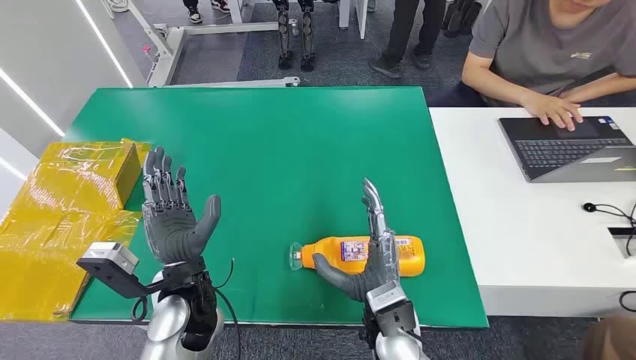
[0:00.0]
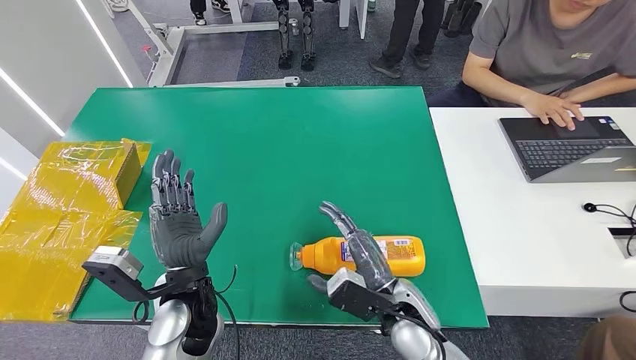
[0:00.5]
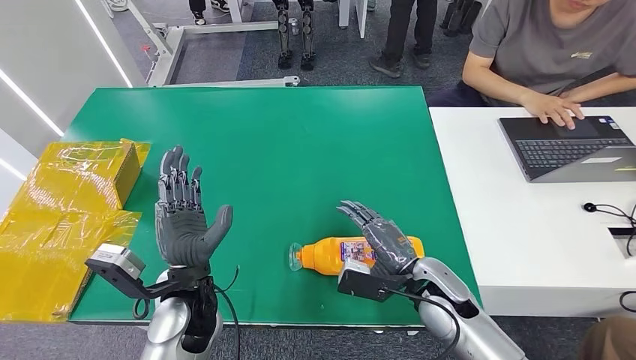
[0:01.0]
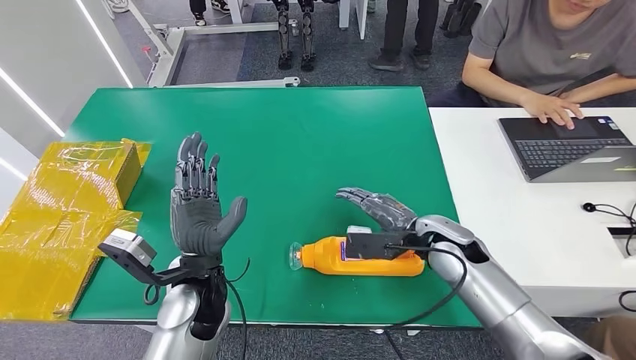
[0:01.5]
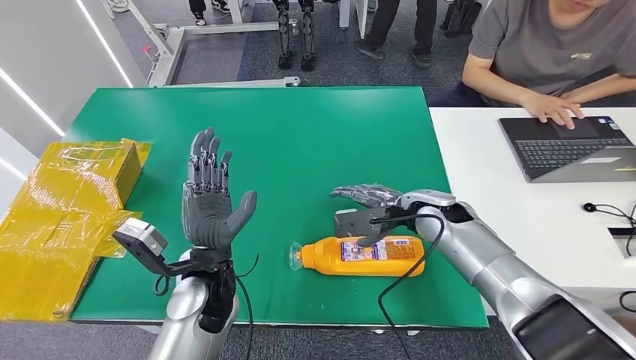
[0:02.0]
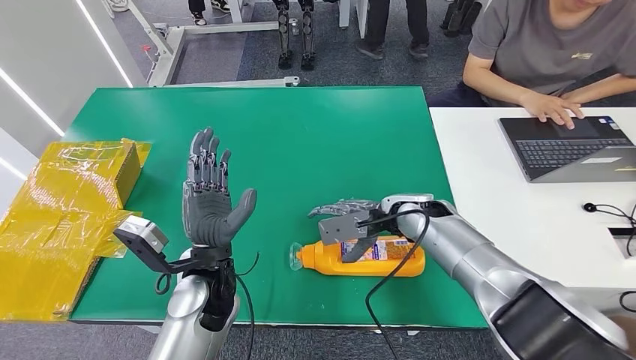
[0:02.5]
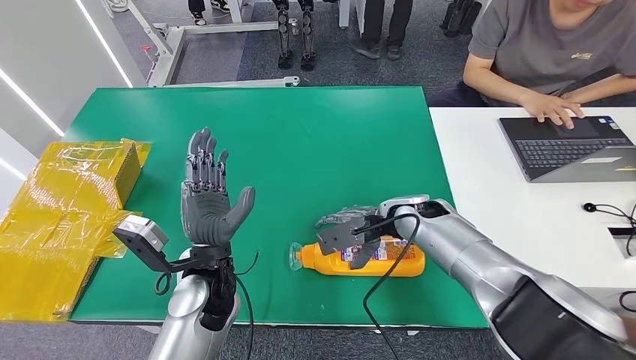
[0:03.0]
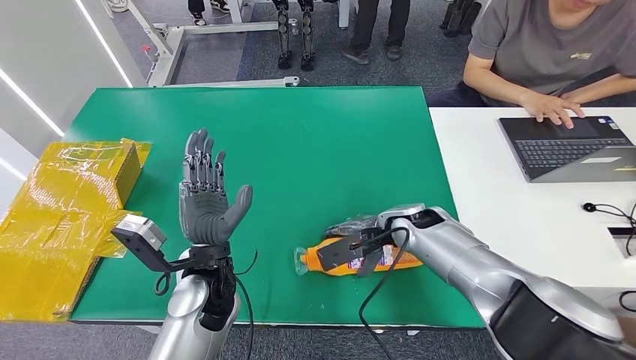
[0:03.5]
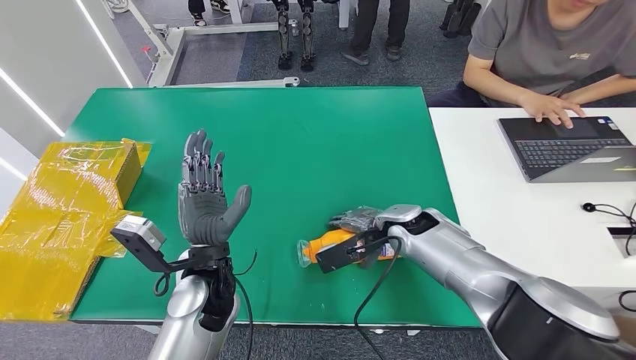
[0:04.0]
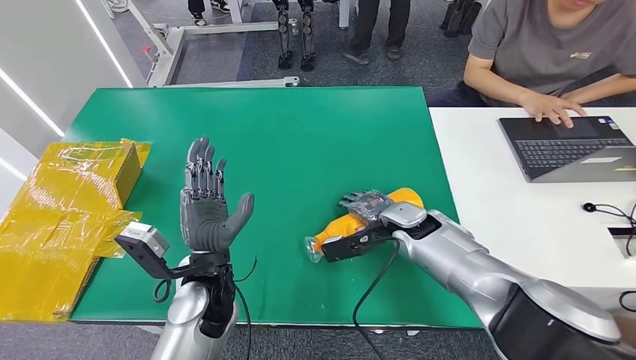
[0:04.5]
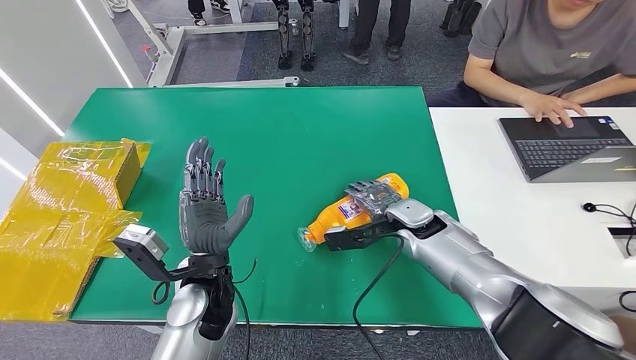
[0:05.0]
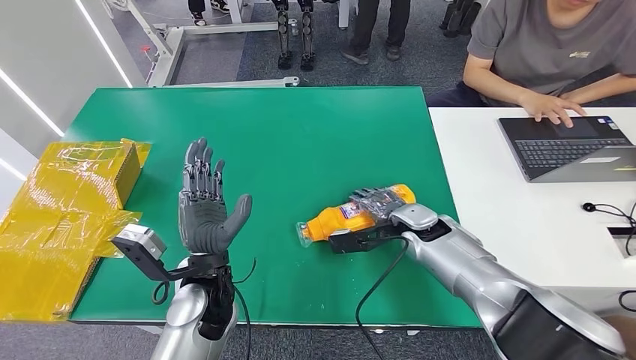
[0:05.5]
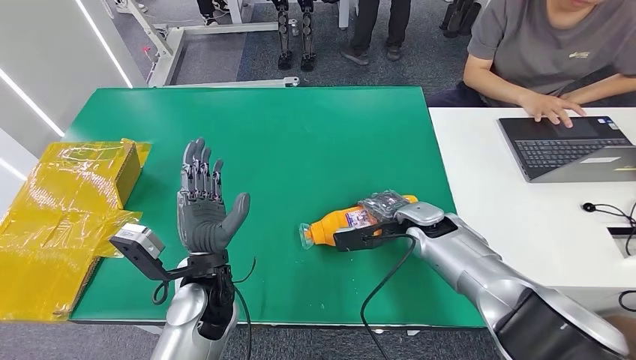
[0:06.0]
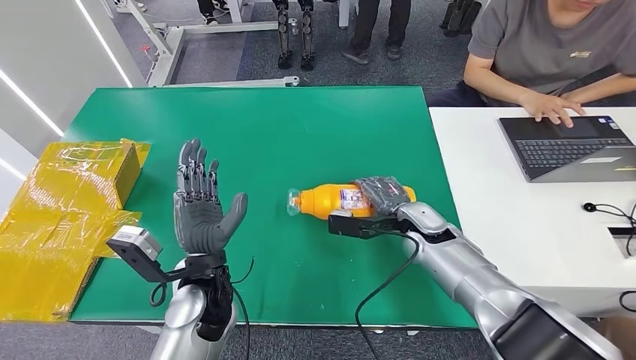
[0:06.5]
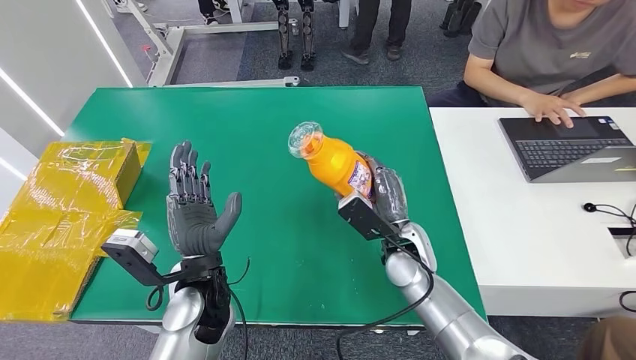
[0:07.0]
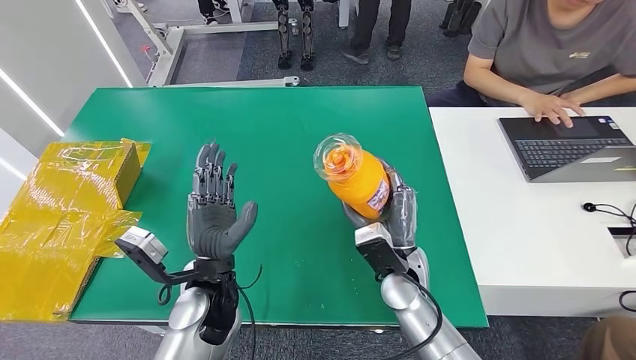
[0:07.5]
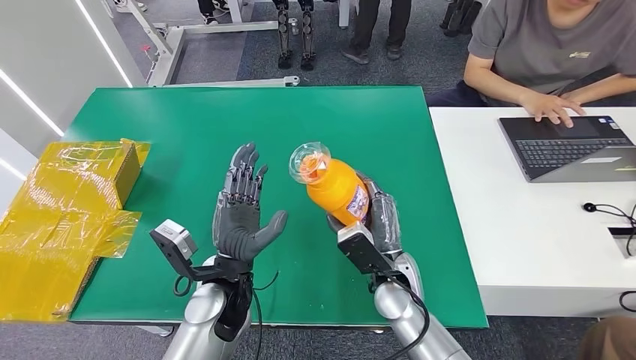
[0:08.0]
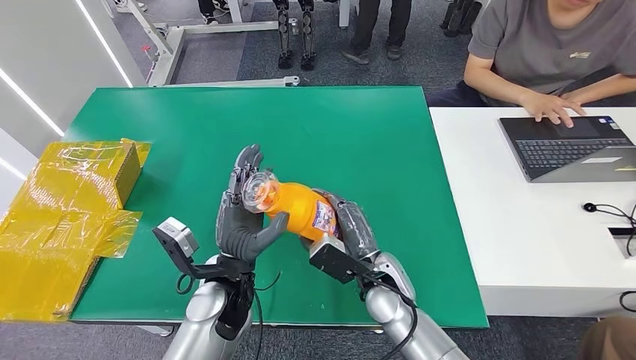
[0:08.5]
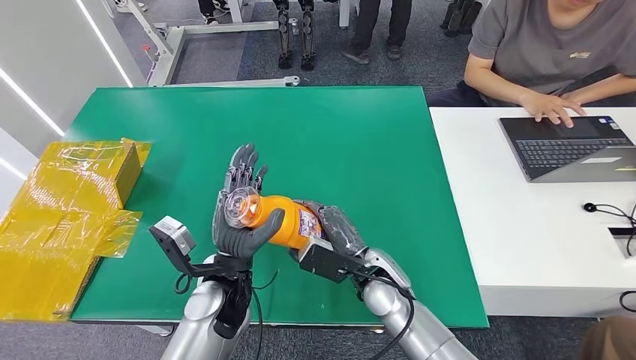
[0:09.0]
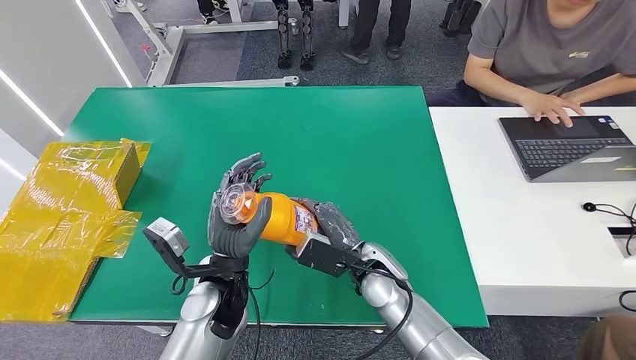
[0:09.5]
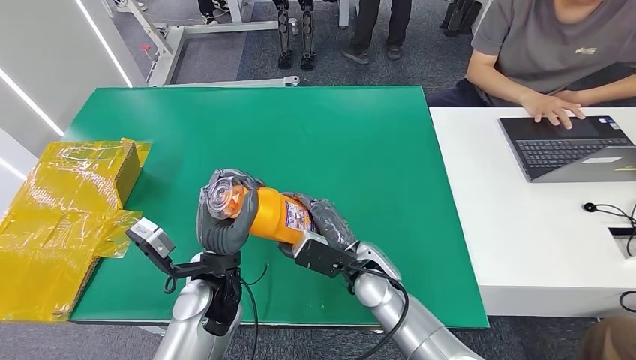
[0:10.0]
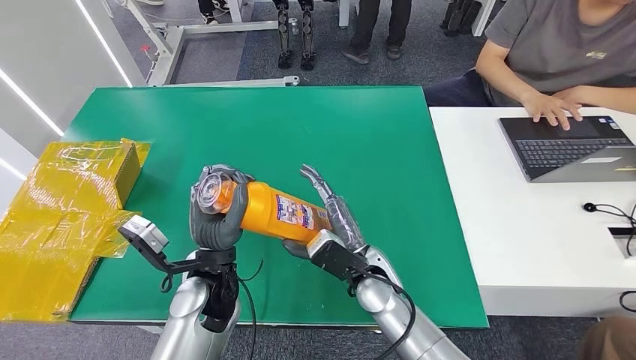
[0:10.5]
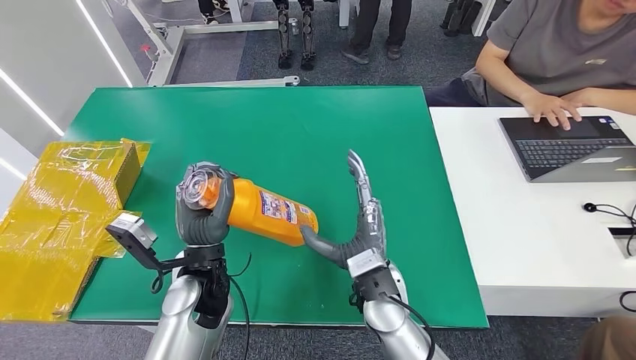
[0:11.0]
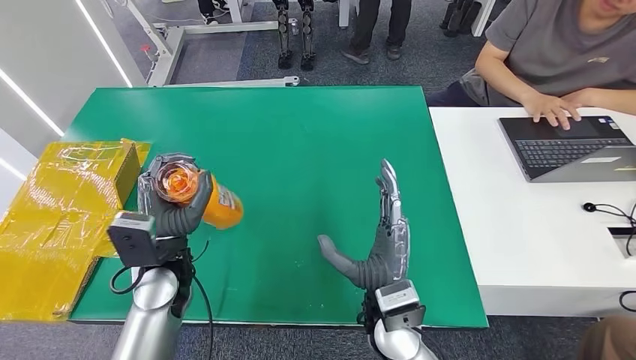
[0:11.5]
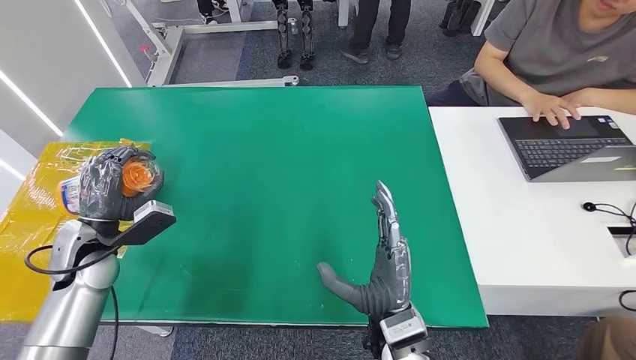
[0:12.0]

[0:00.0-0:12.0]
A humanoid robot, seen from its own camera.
Step, 0:00.0 to 0:07.0: Pick up the bottle from the table.
0:06.0 to 0:08.0: The right hand travels backward and to the left by approximately 15 cm.

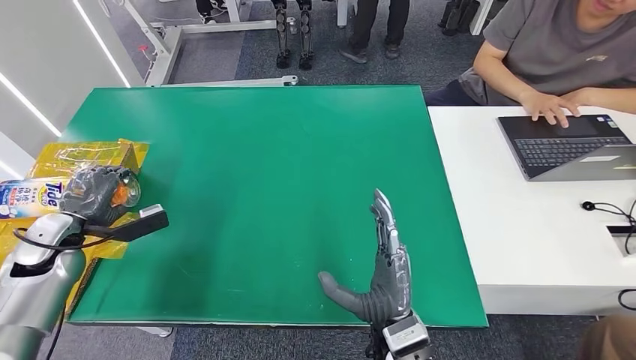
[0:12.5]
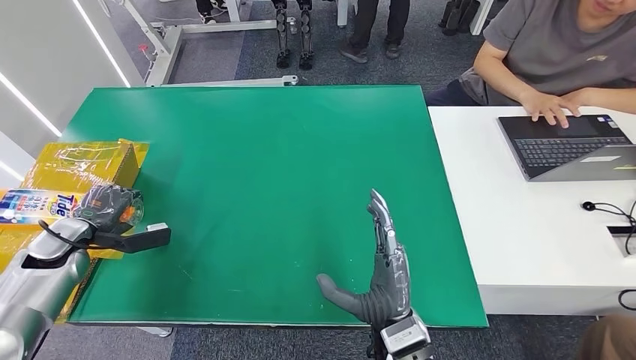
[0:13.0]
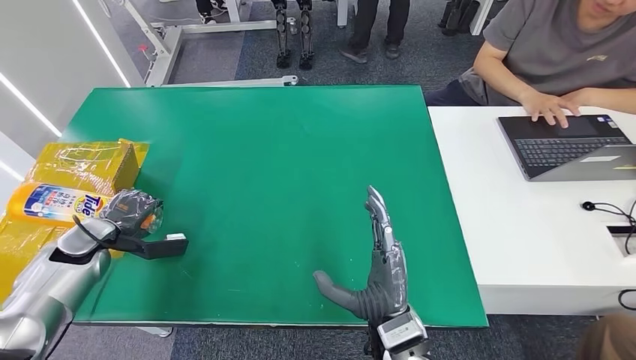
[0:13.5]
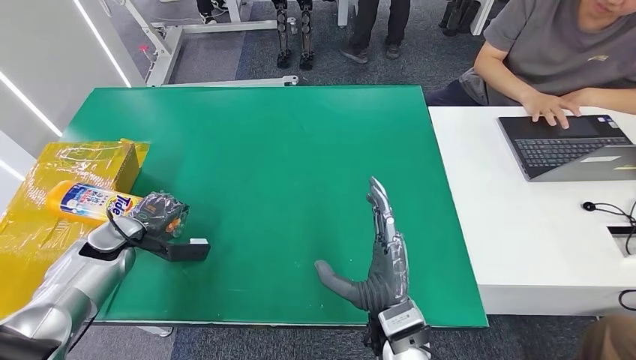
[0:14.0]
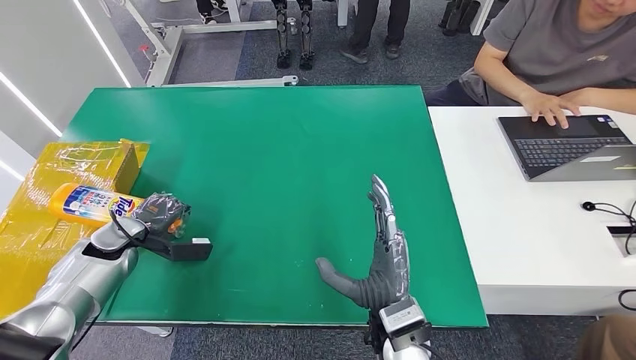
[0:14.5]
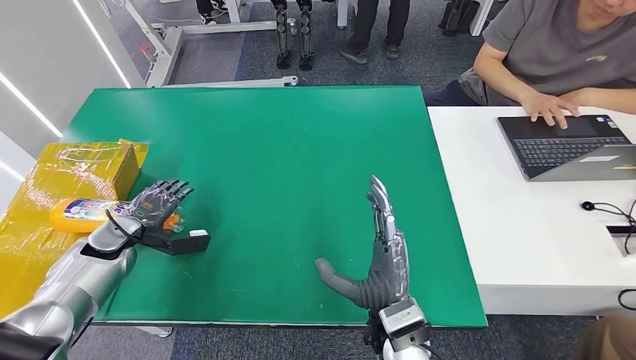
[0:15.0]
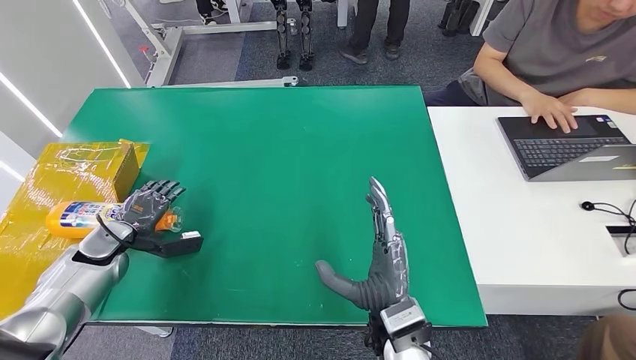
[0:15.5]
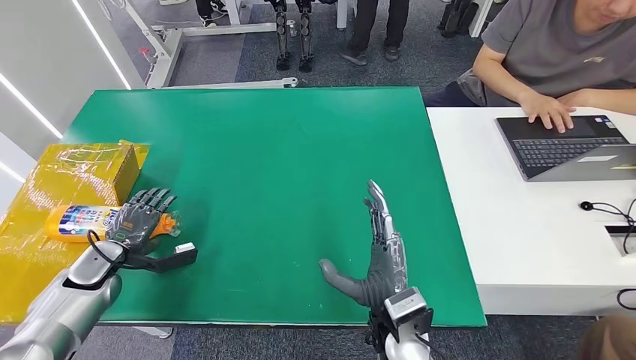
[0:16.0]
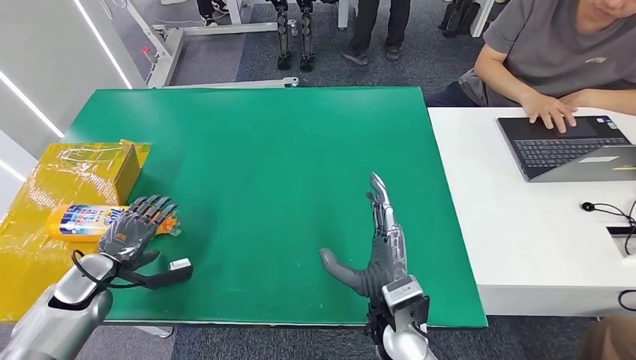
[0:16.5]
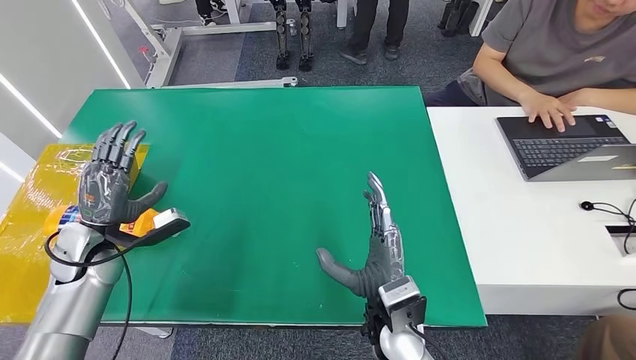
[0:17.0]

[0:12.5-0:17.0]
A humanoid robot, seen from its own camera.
Step, 0:12.5 to 0:17.0: Turn the bottle to the front side.
0:12.5 to 0:14.5: The left hand travels downward by approximately 5 cm.
0:14.5 to 0:17.0: The left hand shifts approximately 5 cm upward.
